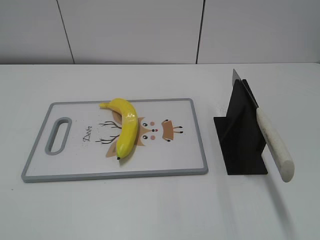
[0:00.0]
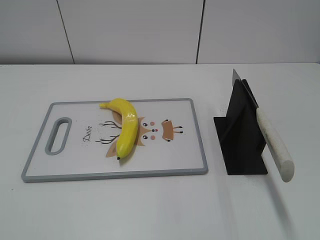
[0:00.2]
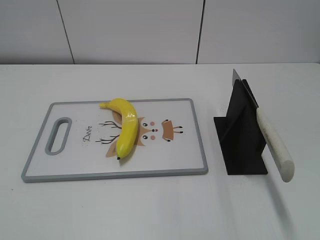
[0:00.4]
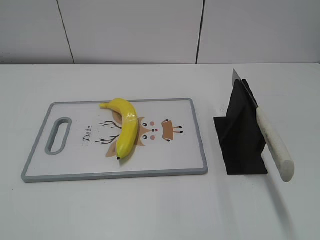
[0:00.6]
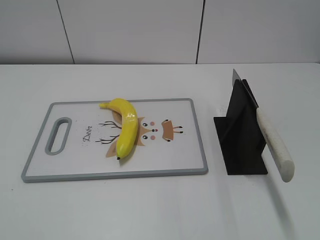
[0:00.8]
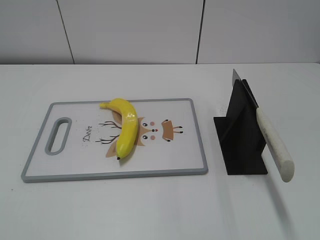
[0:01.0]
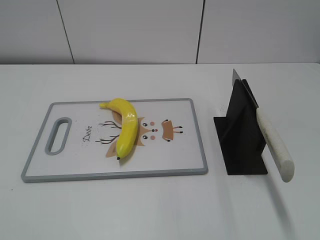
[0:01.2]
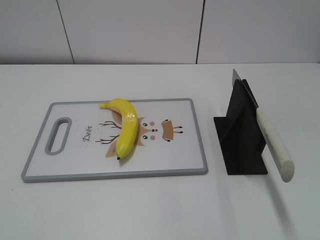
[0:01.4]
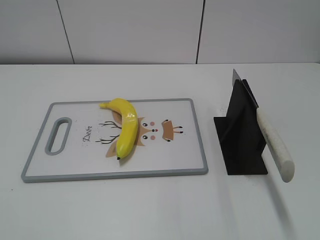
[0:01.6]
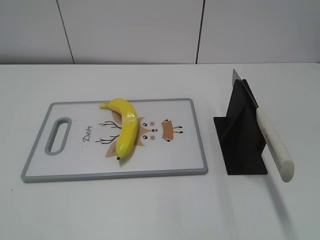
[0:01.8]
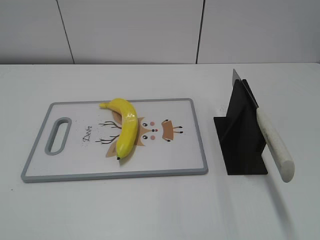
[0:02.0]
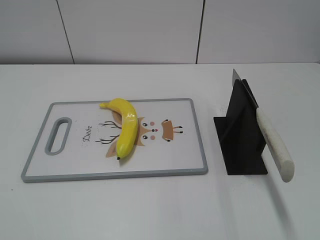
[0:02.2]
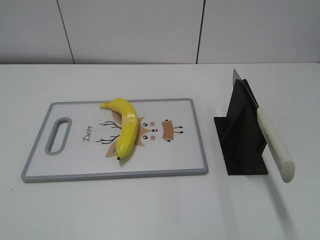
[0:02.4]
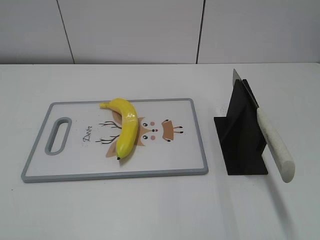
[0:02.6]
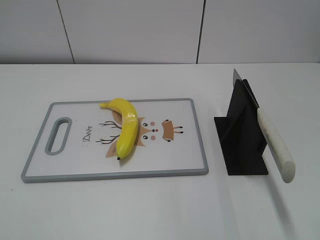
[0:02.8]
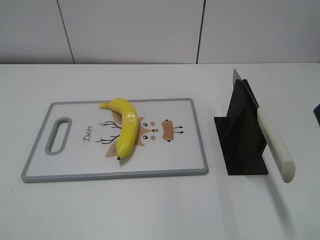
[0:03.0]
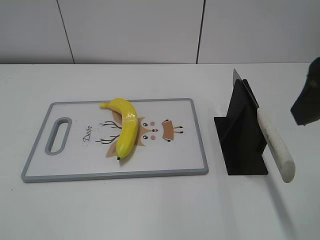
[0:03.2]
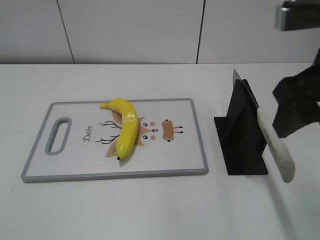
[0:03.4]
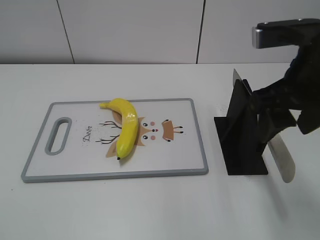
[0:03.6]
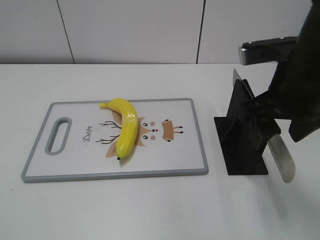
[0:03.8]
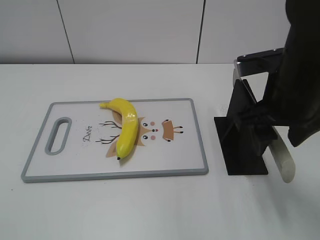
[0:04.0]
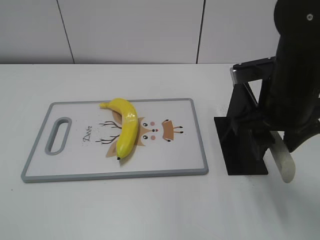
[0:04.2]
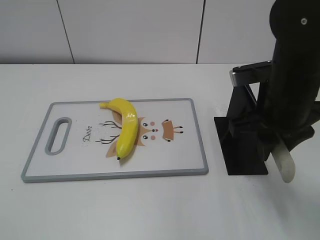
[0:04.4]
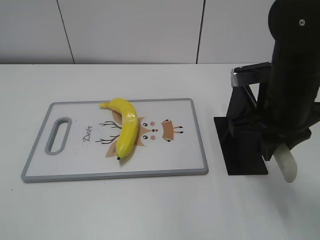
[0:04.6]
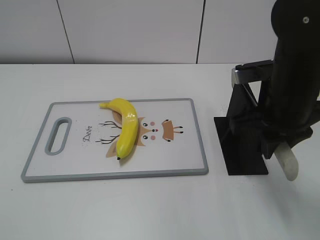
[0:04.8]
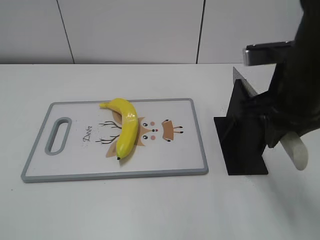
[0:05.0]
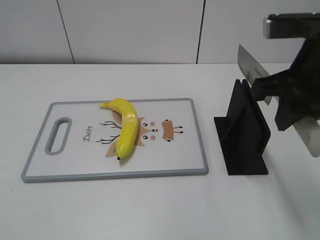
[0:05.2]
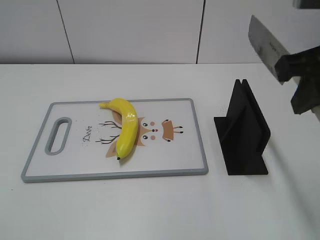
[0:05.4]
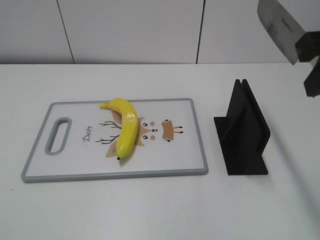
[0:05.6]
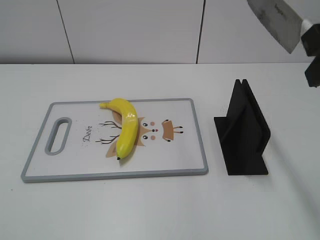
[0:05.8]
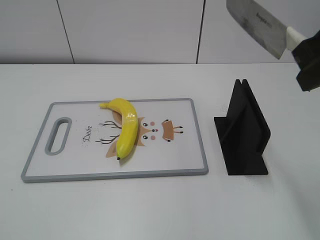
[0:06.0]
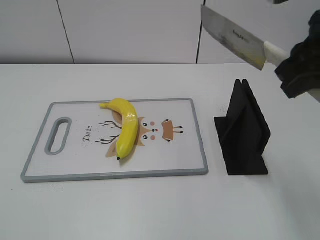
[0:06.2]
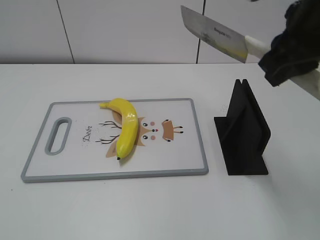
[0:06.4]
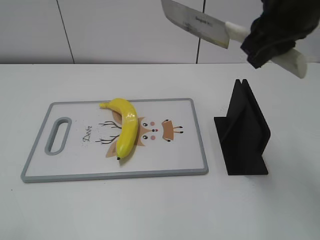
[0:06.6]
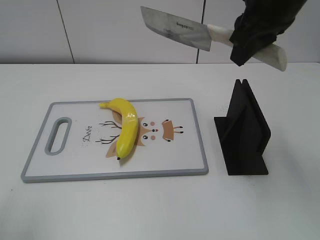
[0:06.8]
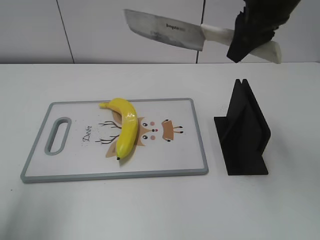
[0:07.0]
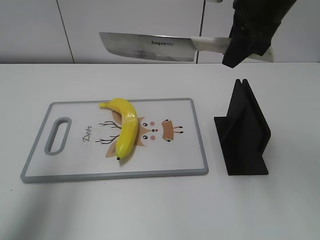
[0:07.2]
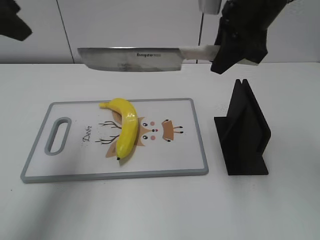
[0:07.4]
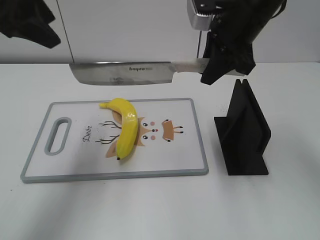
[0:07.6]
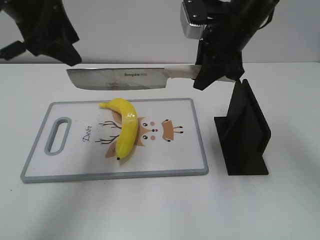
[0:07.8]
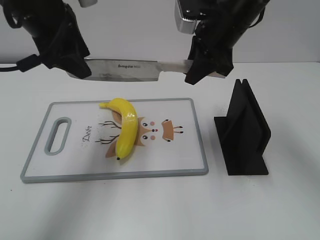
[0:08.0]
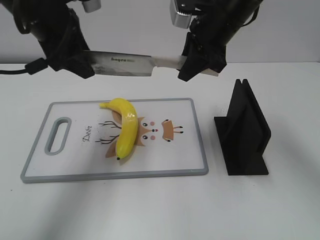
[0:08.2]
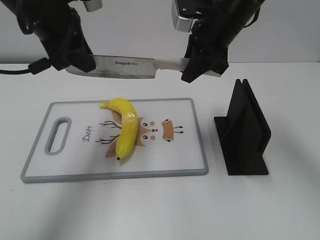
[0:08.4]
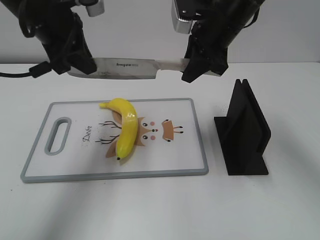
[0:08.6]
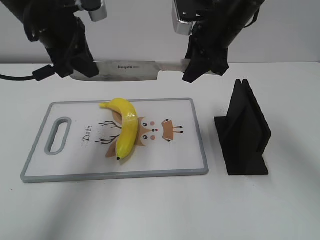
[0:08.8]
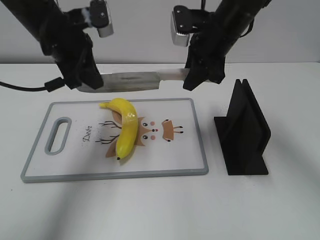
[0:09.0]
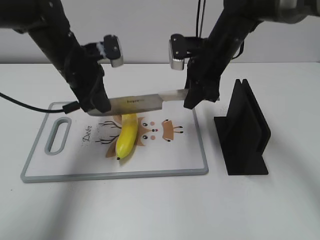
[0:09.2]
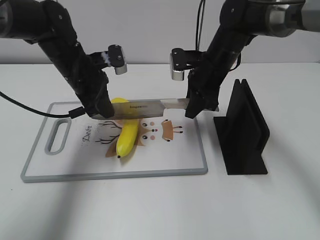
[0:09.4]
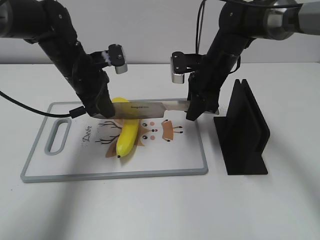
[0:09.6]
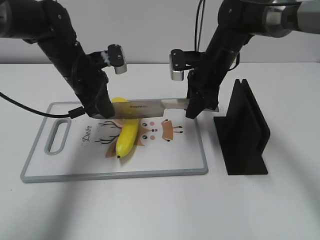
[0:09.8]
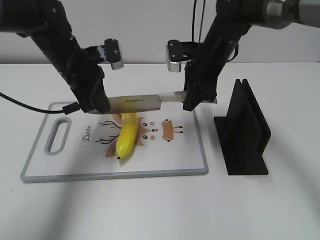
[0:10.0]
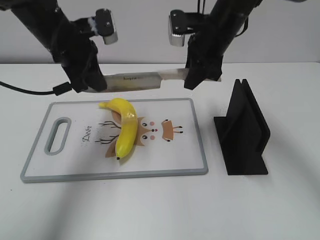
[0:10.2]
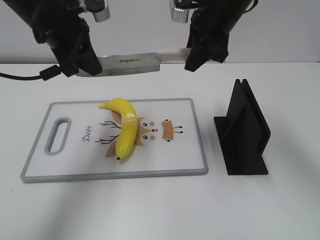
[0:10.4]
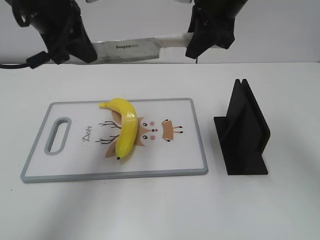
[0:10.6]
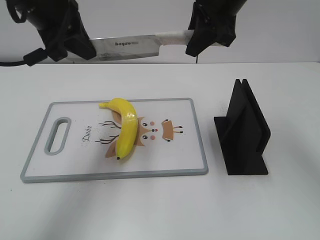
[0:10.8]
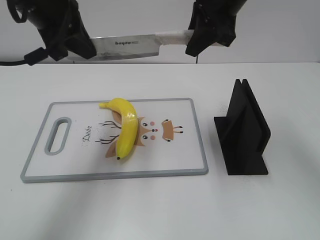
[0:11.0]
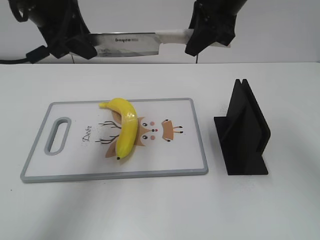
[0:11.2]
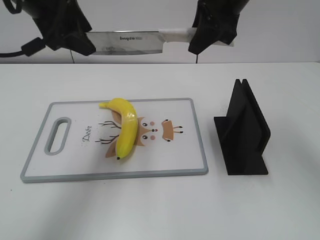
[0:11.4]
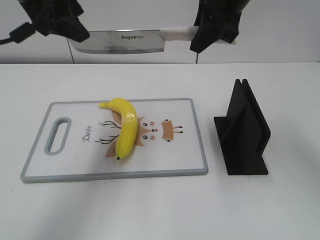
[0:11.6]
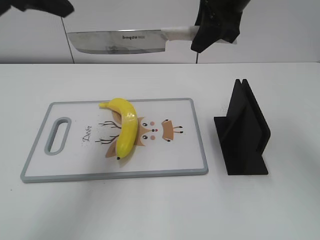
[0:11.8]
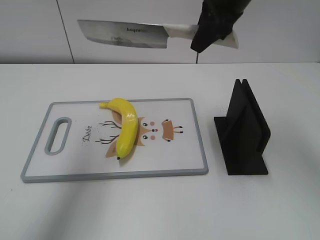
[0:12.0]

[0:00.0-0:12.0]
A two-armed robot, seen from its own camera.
Task of the whole recording: cut plastic banana.
Step, 0:00.0 to 0:05.6: Grab the knife handle with your right hand.
Step, 0:06.0 to 0:10.6: Lift the knife with your right hand.
Step, 0:10.8 to 0:11.4: Cut the banana with your right hand.
0:03.0 to 0:04.4: The right gripper is displaced downward, forward and to the left by approximately 20 cm, and closes its fingers.
0:04.4 to 0:06.0: The right gripper goes some 15 cm upward.
0:06.0 to 0:07.6: The left gripper moves forward, roughly 35 cm. The right gripper moves forward, downward and to the left, roughly 20 cm.
0:07.6 to 0:09.0: The right gripper travels downward by some 5 cm, while the left gripper shifts approximately 10 cm downward and forward, and closes.
0:09.0 to 0:10.4: The right gripper travels upward by some 5 cm. Meanwhile the left gripper travels downward and back again, some 10 cm each way.
0:10.4 to 0:12.0: The left gripper is displaced upward, backward and to the left by about 20 cm, and opens its fingers.

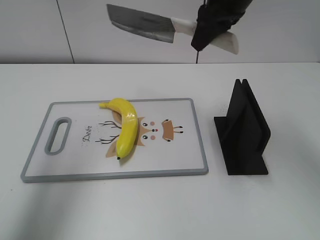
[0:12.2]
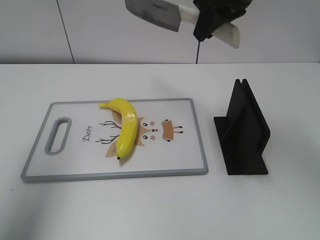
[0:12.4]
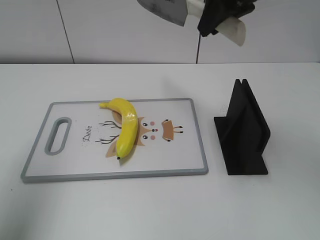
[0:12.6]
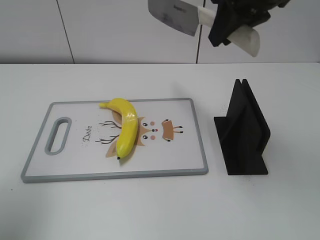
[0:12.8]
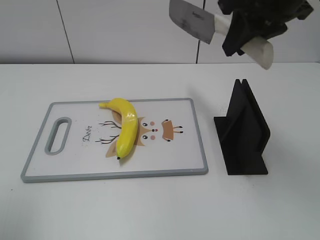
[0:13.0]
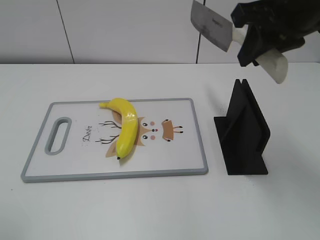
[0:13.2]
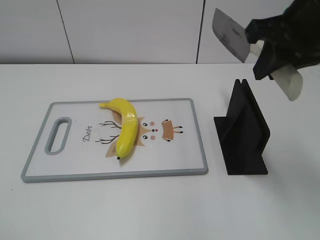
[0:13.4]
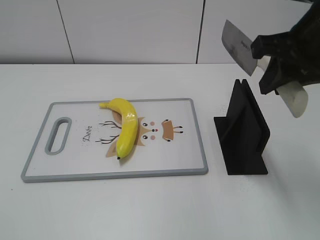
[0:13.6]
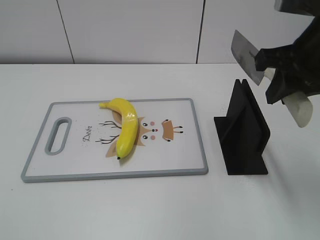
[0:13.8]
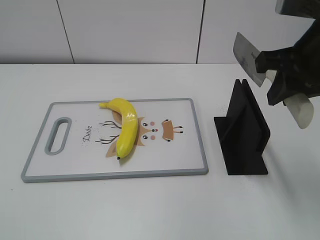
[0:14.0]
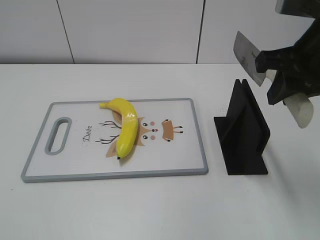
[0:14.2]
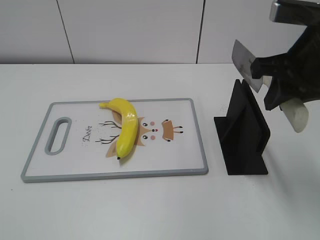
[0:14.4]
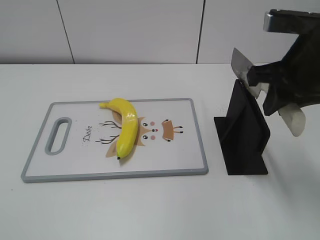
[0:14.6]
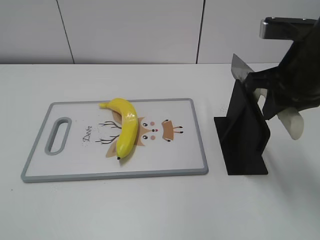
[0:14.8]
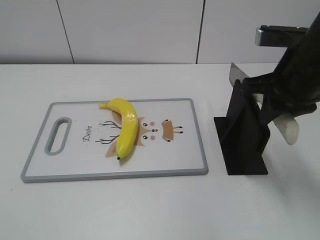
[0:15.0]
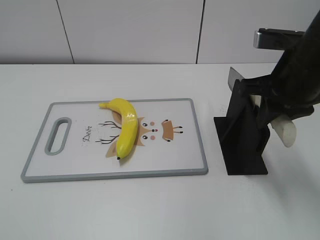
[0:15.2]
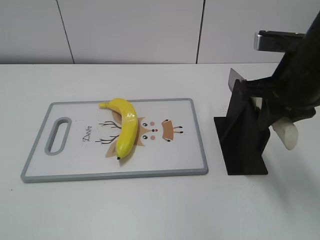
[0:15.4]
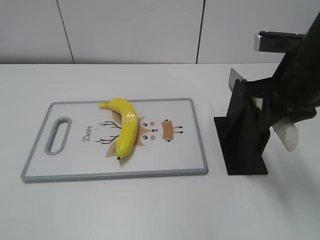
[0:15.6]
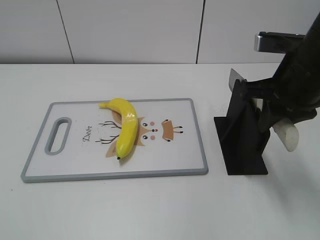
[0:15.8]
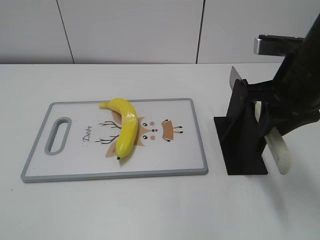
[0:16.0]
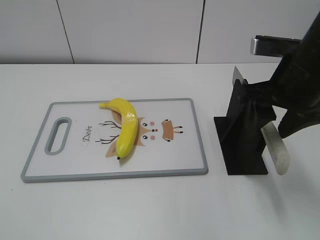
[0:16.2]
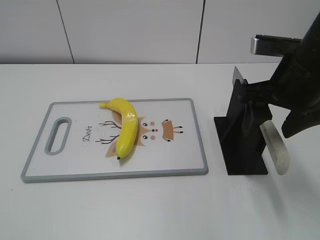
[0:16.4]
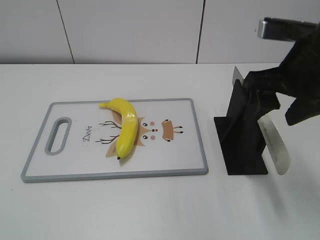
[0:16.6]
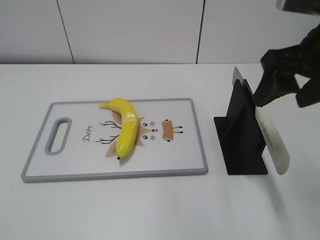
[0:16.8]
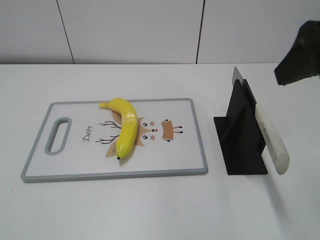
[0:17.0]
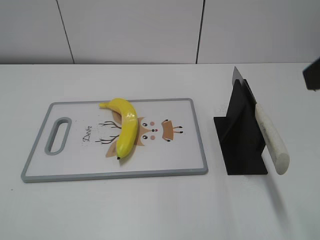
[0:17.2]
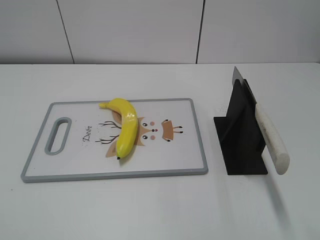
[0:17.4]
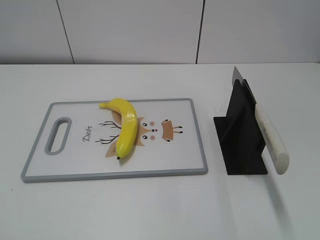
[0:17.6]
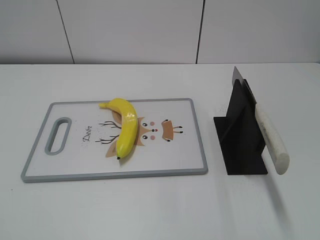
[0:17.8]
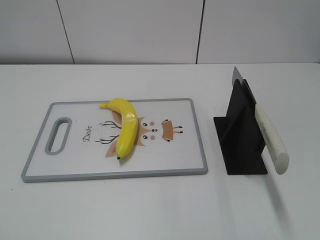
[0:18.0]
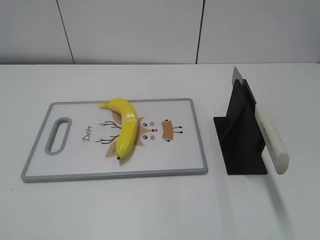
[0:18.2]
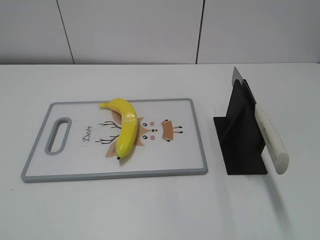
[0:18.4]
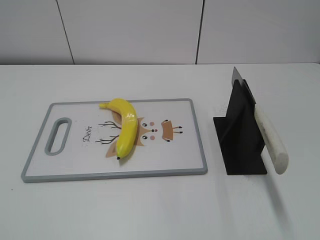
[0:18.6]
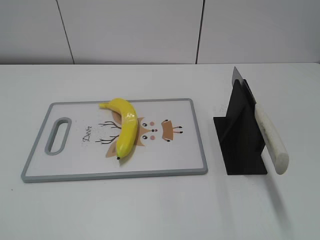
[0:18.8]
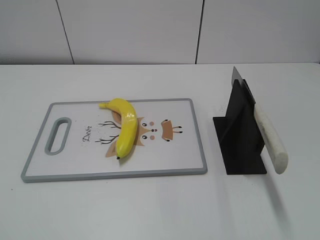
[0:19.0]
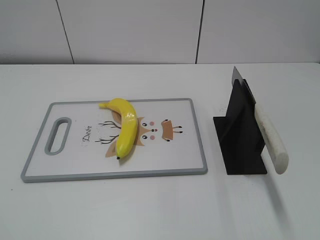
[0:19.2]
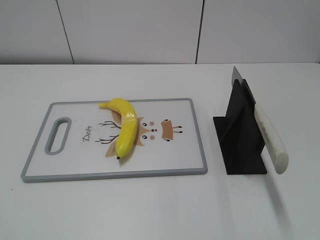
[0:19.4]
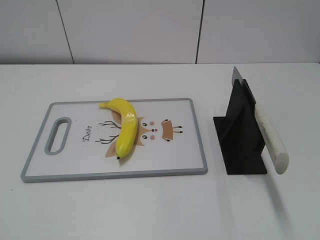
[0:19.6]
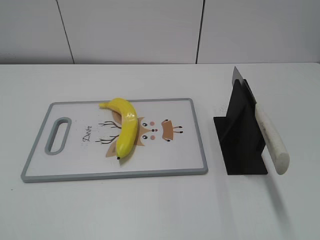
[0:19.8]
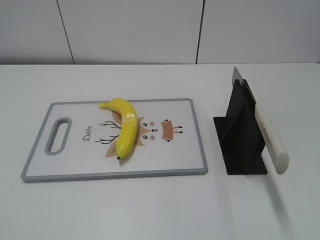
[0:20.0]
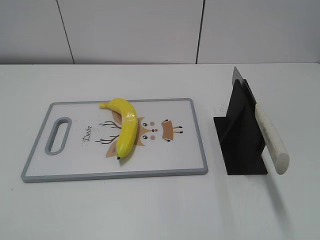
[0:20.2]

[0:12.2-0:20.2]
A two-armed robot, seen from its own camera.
Task of the whole recording: cut plastic banana.
Step, 0:12.2 to 0:13.0: Lift the knife with your right hand.
Step, 0:13.2 to 0:20.0: Place the knife on the storage rack with your right hand.
0:12.2 to 0:13.8: The left gripper heads backward and downward, covering roughly 30 cm. Meanwhile the right gripper is displaced backward and to the right by roughly 15 cm.
0:13.8 to 0:15.4: The right gripper changes place by roughly 5 cm.
0:15.4 to 0:17.0: The right gripper heads upward and backward, covering some 15 cm, and opens its fingers.
0:17.0 to 0:18.6: The right gripper moves backward and to the right, some 25 cm.

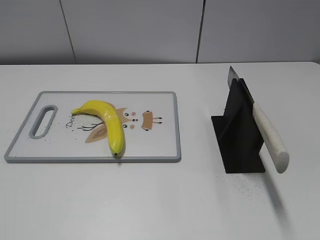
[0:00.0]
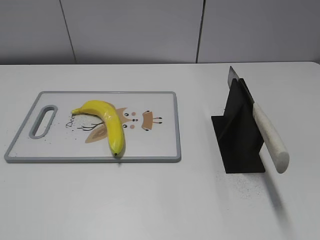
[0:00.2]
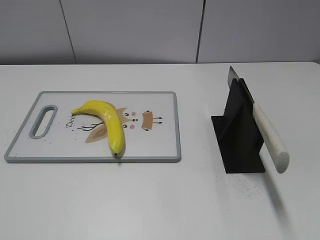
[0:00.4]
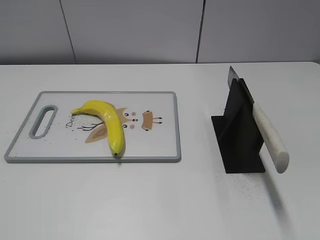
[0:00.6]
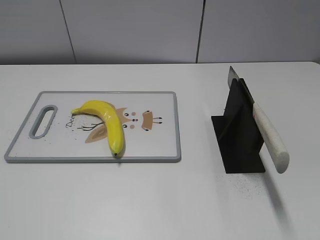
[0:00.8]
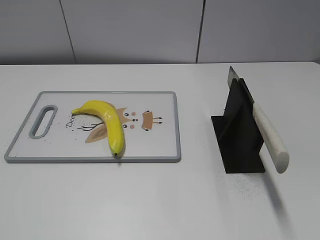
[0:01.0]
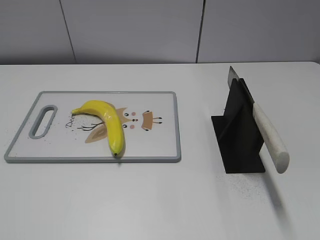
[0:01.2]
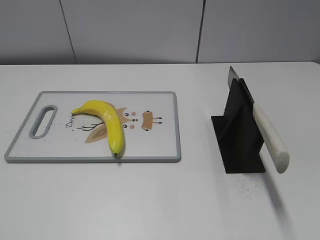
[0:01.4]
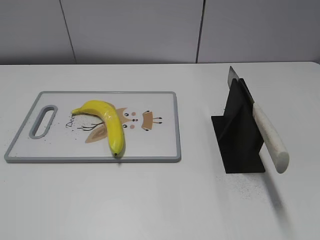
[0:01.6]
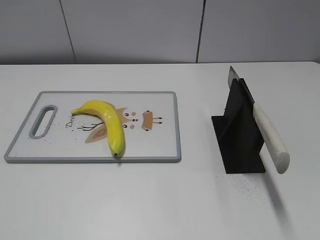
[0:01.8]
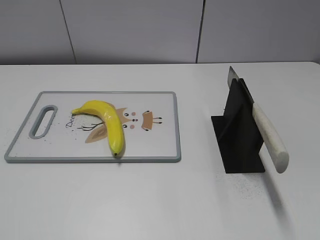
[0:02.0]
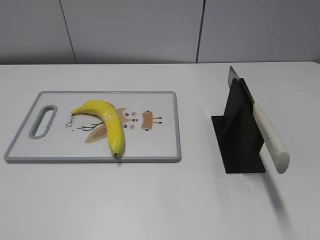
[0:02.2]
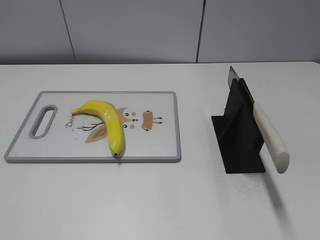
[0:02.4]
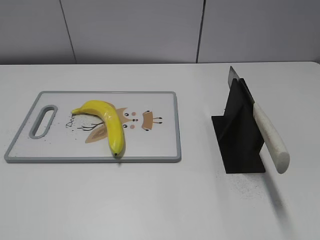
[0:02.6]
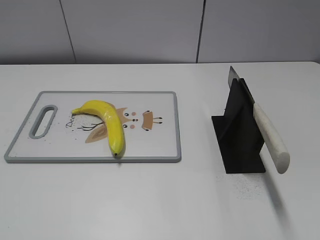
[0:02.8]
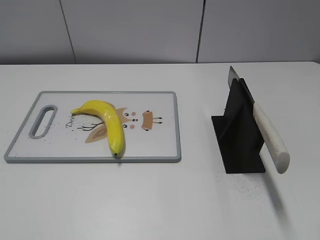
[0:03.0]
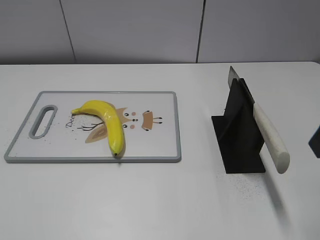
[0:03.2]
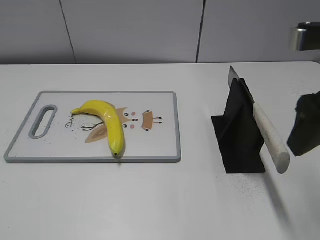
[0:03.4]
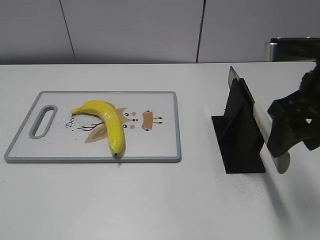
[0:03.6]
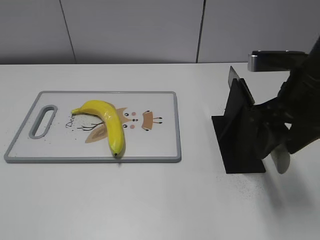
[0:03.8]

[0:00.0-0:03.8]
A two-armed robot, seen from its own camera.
Task of the whole recording: cut plastic banana.
0:02.6 to 0:03.8: The right gripper goes approximately 20 cm forward and to the left.
